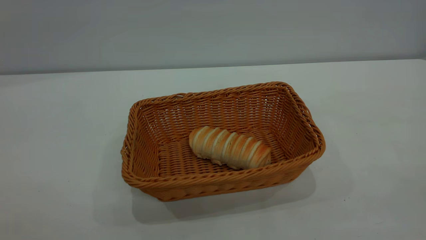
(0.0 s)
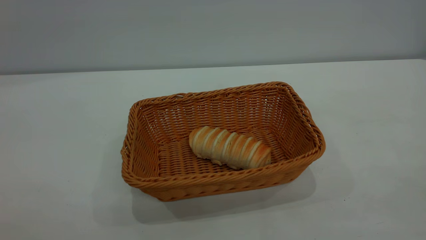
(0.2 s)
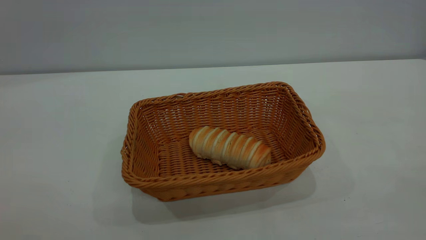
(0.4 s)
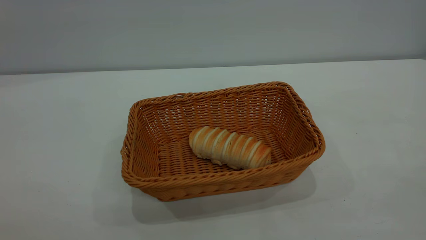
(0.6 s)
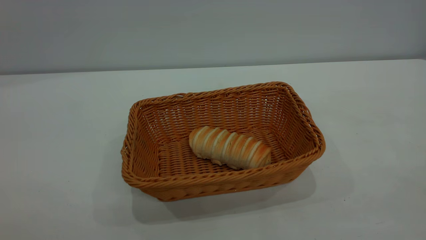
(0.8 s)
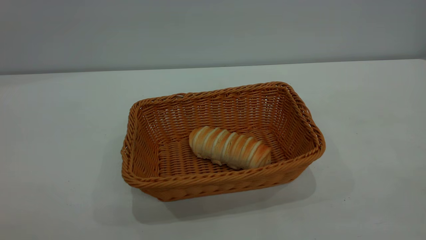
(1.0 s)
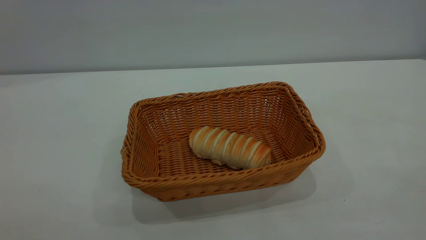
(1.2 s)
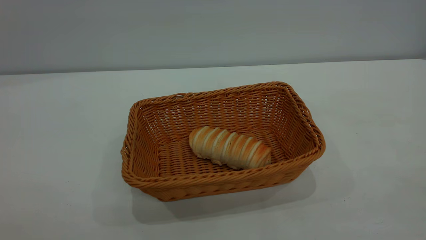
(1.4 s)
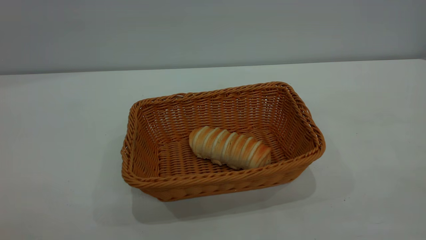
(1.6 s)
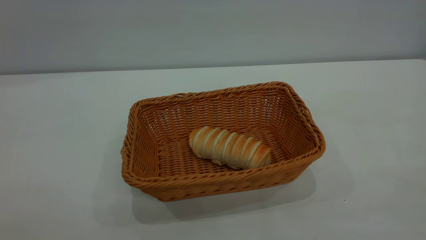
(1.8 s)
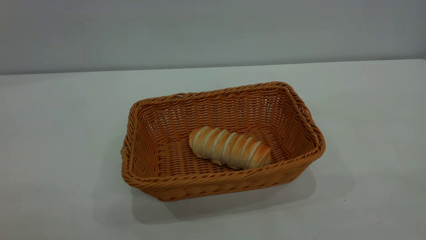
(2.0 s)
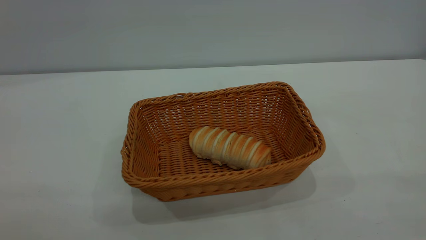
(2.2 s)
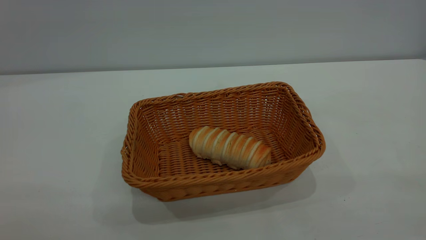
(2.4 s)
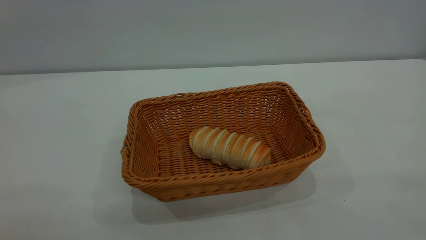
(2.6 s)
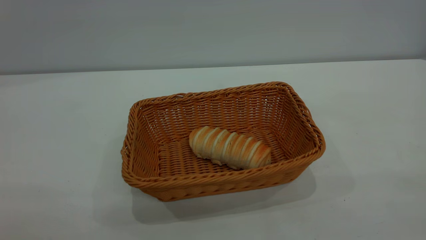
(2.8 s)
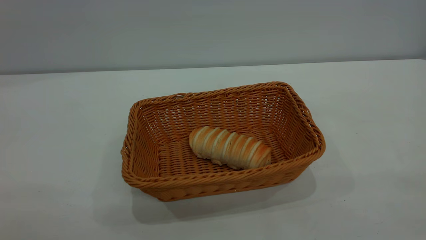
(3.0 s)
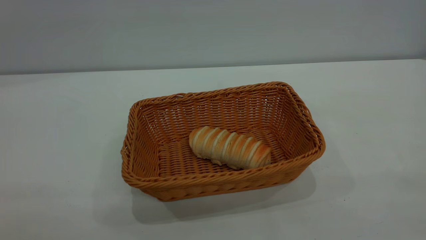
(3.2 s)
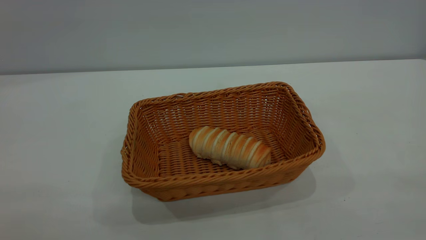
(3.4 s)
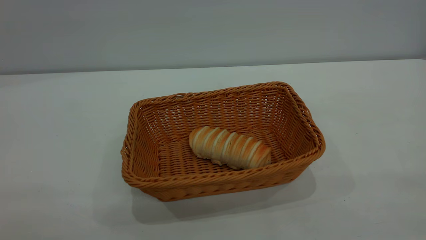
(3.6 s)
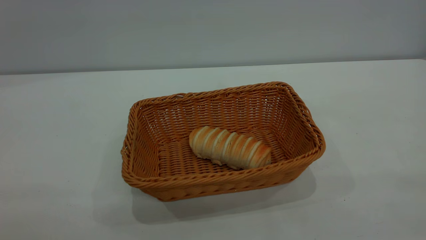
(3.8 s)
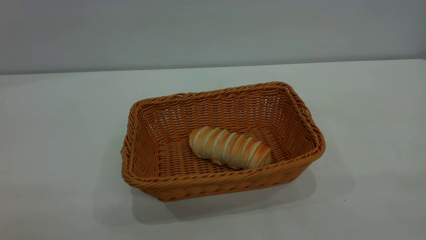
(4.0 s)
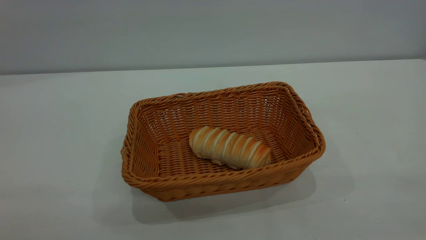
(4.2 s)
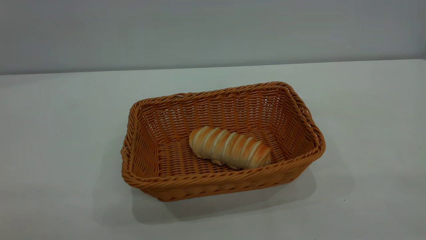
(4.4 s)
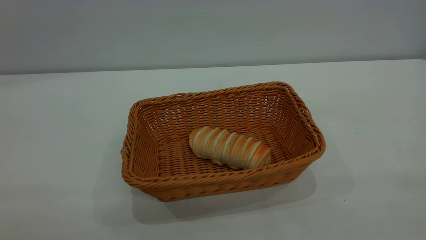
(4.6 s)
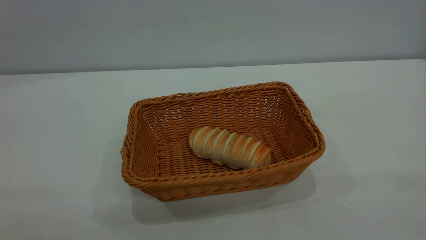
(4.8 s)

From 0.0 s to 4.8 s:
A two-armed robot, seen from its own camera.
Task of the whole recording: One hand grasps the yellow basket and places it in the middle of the table, while the other hand picks up the long bread and puts it into the yellow basket.
From 0.0 s to 1.6 s: Both grippers stay put.
From 3.2 s to 4.8 s: Neither gripper changes place.

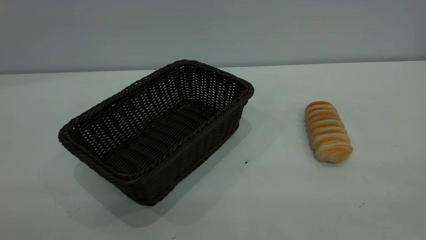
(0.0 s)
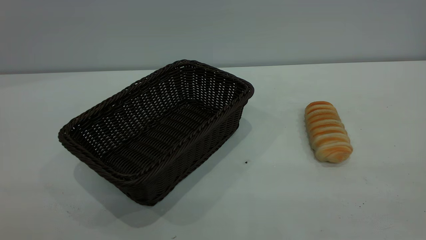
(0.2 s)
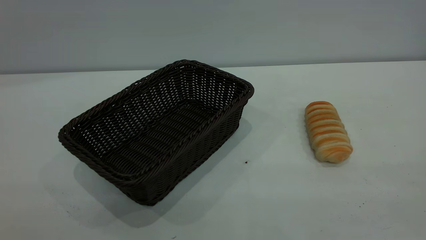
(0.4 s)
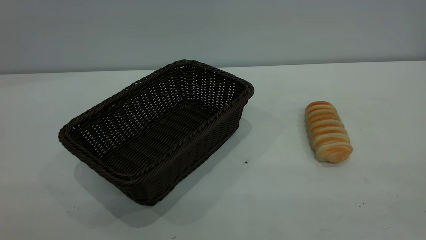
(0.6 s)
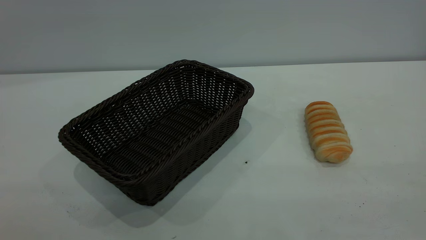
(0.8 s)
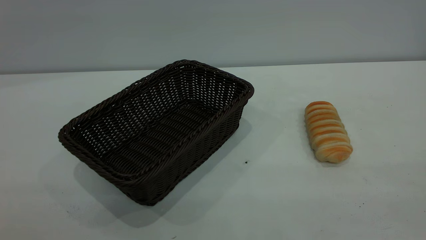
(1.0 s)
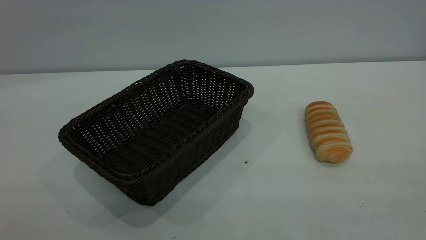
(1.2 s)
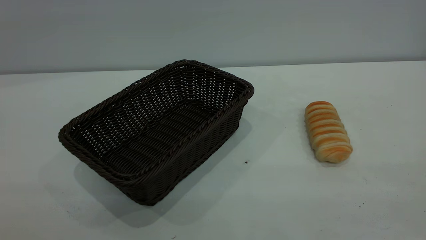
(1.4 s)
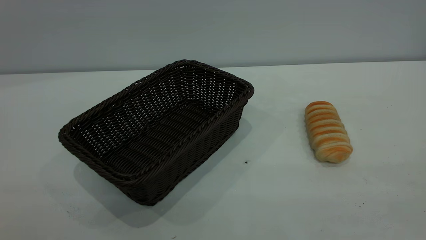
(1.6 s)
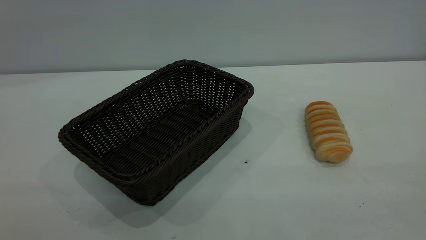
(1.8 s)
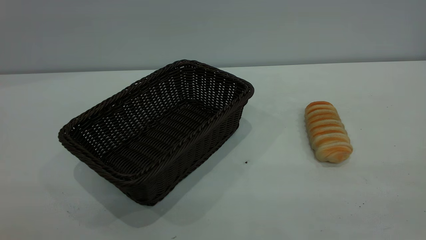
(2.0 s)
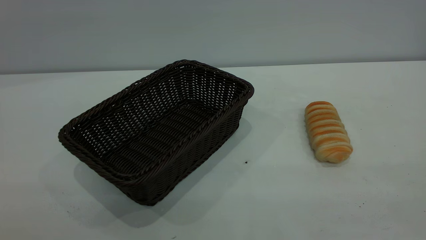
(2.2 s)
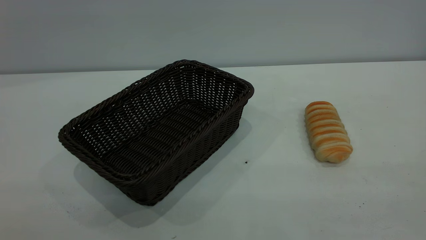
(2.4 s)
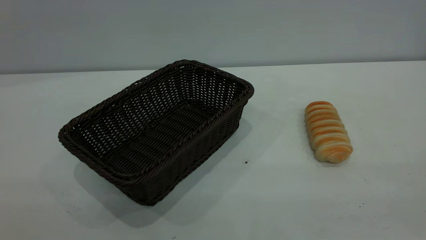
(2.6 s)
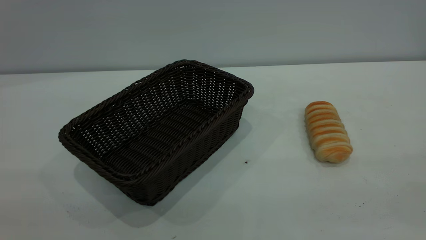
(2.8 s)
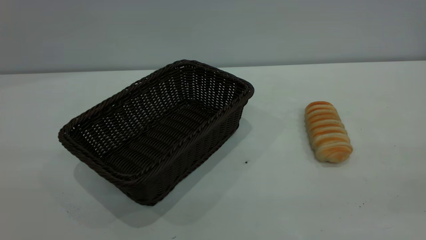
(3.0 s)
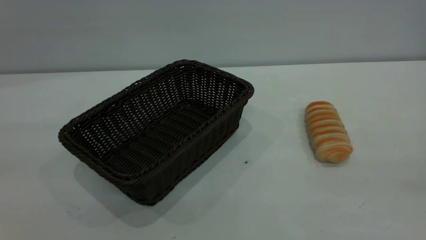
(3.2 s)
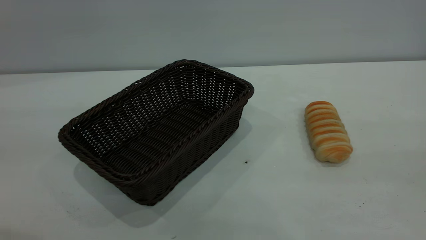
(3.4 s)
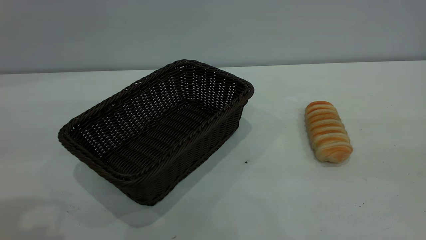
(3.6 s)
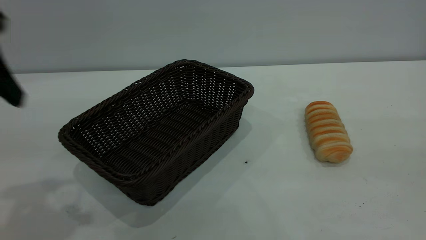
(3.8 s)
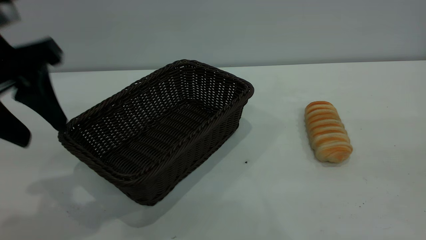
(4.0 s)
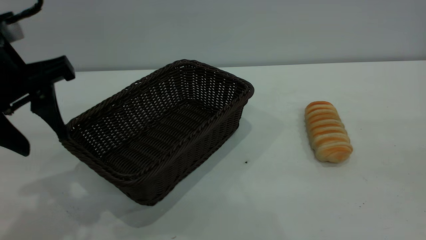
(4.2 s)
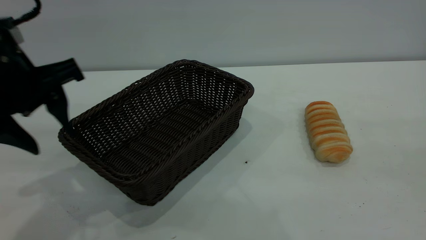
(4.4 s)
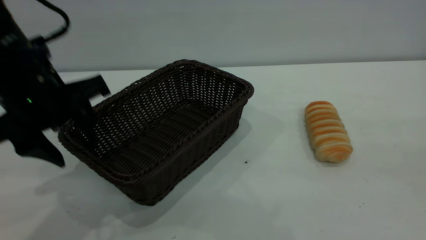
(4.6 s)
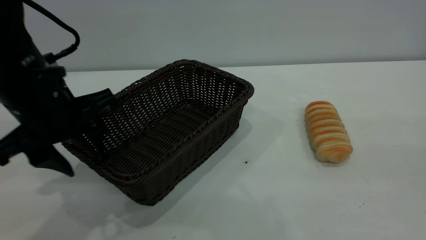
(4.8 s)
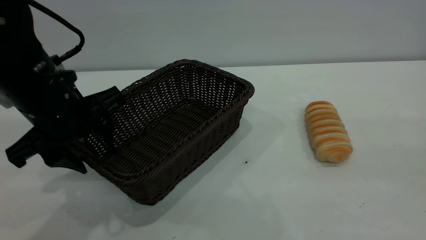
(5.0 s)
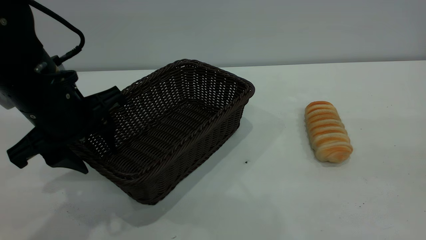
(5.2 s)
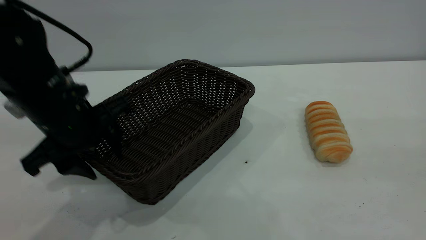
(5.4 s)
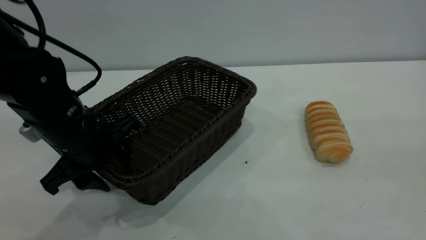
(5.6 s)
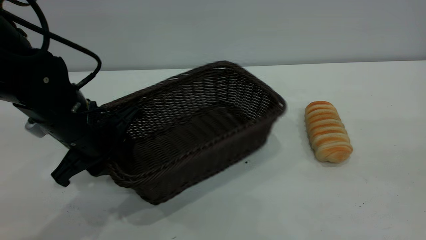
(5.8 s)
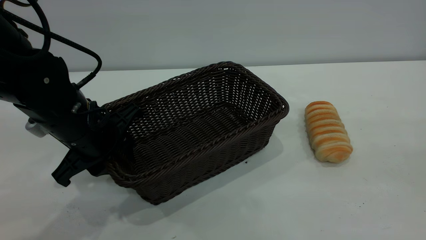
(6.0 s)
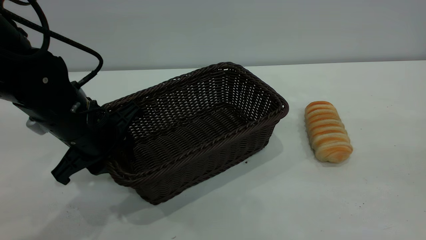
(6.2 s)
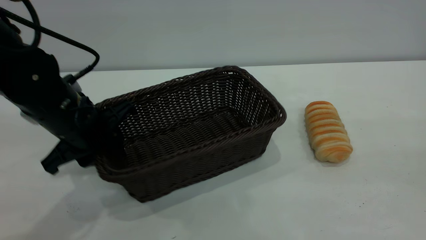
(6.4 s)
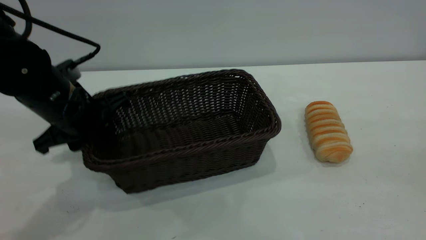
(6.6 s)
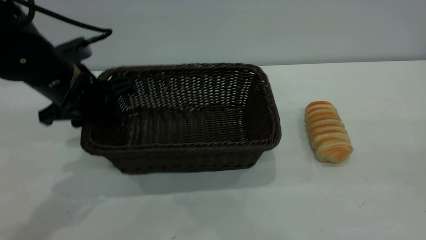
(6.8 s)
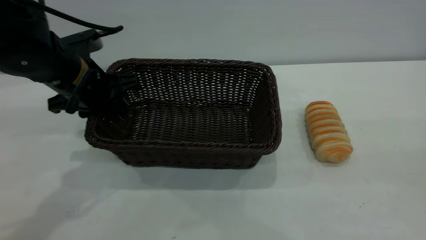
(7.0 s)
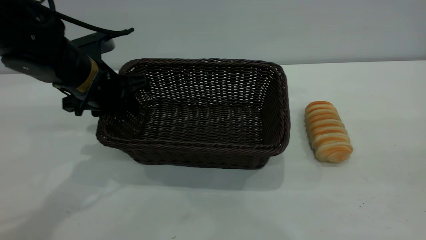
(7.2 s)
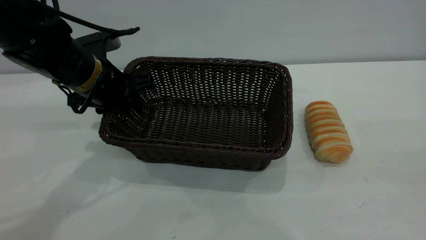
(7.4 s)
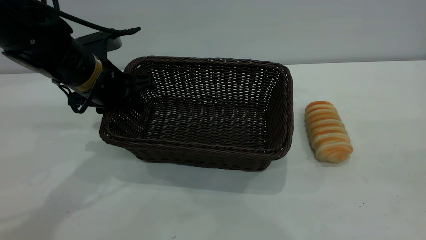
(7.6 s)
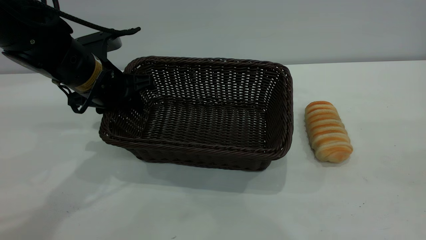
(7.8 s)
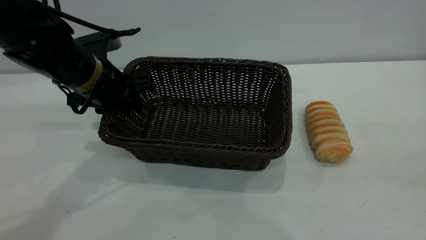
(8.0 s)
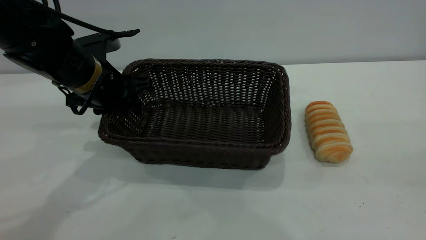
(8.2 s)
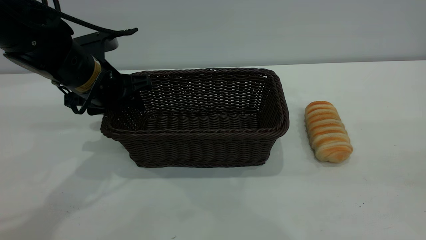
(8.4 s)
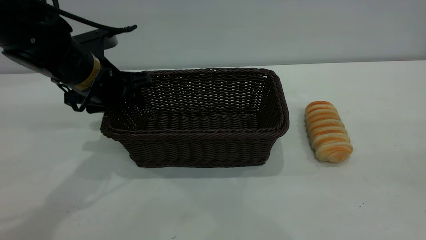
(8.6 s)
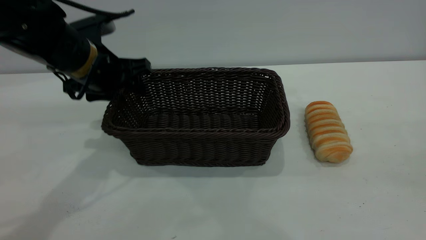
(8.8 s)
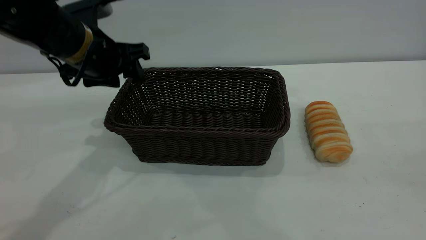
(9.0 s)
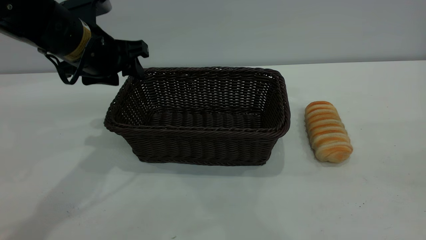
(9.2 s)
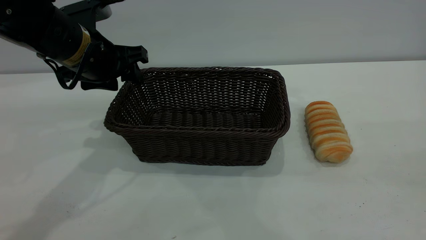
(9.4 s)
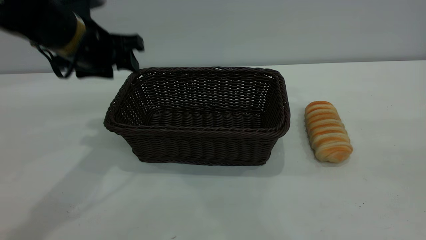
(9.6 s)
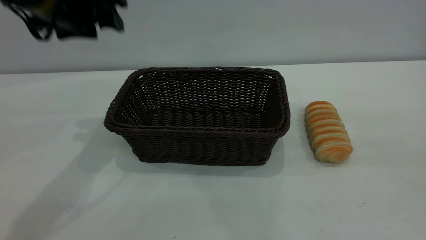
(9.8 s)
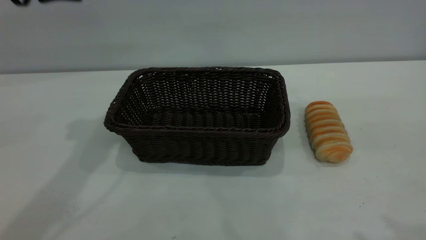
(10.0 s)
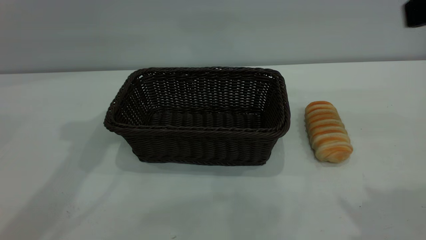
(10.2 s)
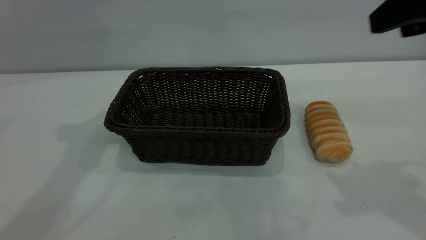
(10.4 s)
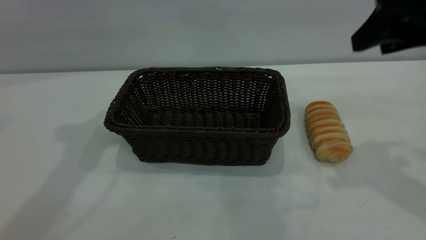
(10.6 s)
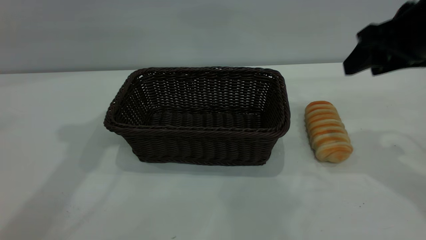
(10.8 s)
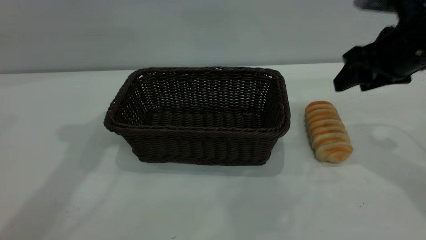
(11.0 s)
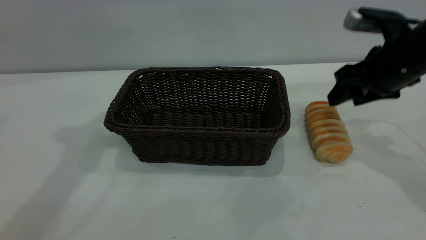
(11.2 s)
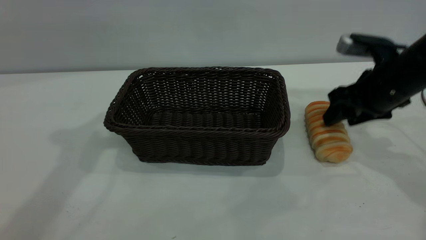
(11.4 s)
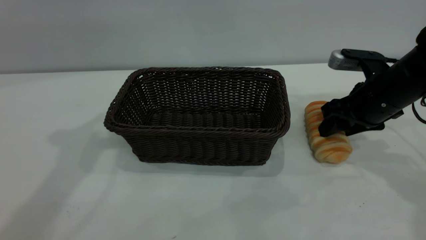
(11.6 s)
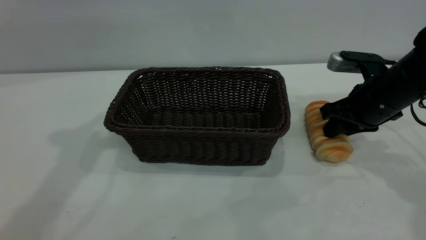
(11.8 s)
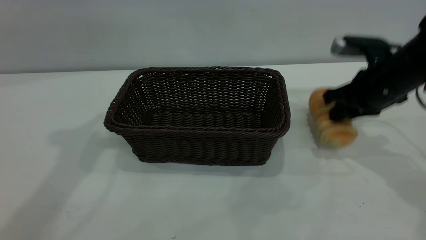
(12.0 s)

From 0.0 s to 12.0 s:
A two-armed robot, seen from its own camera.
Task of the whole recording: One hand grasps the black basket and places it in the middle of the table, while the other hand picks up the long bread and puts it into the black basket.
Step, from 0.0 s to 9.6 s: Move the basket to the center of view.
From 0.0 s to 1.6 s: Both grippers stay put.
From 3.0 s to 4.4 s: The left gripper travels forward and downward by approximately 30 cm.
From 4.4 s to 6.0 s: The left gripper travels downward by roughly 10 cm, and closes up.
From 6.0 s to 7.6 s: The left gripper goes about 5 cm forward.
From 7.6 s to 9.0 s: The left gripper opens up.
From 9.0 s to 10.4 s: The left gripper moves upward, approximately 15 cm; the right gripper travels forward by roughly 20 cm.
From 10.4 s to 12.0 s: The right gripper moves downward and forward, roughly 20 cm, and closes.
